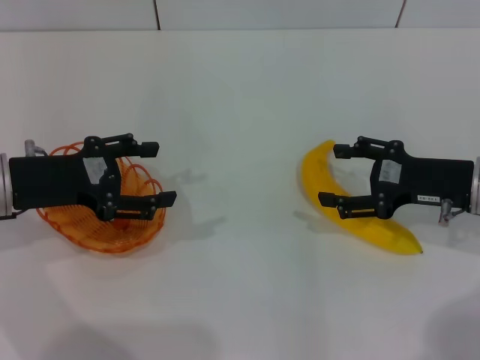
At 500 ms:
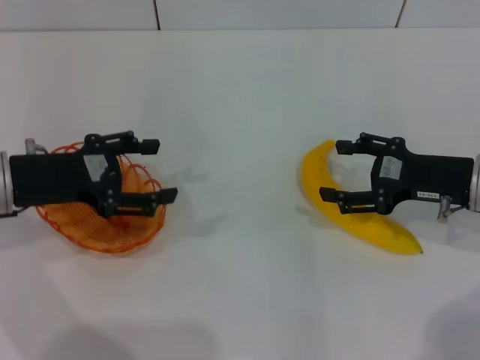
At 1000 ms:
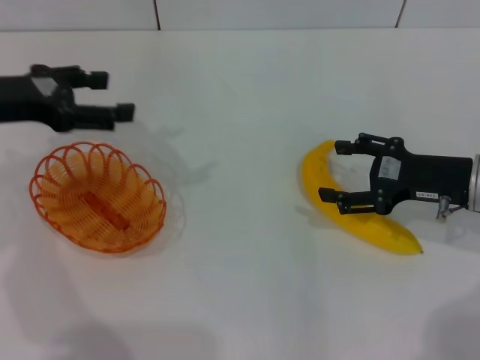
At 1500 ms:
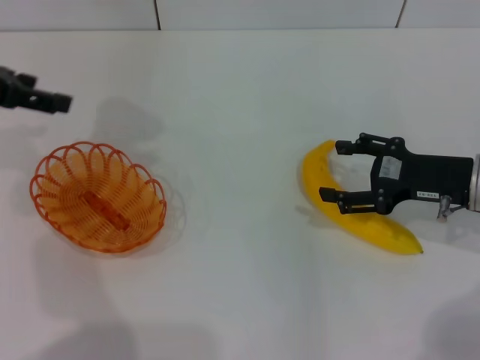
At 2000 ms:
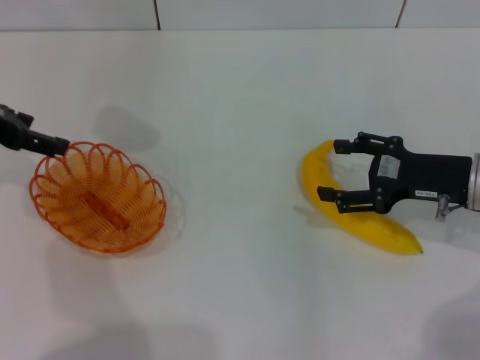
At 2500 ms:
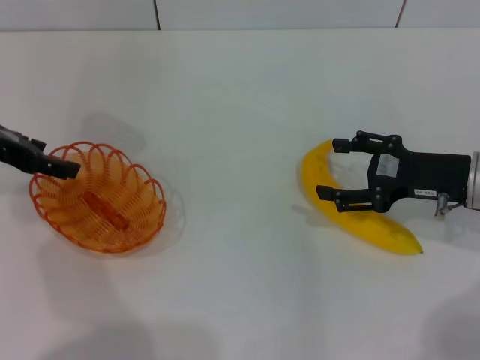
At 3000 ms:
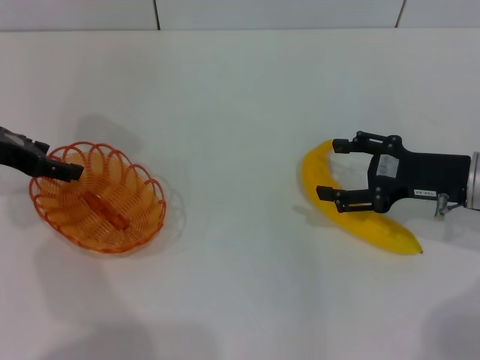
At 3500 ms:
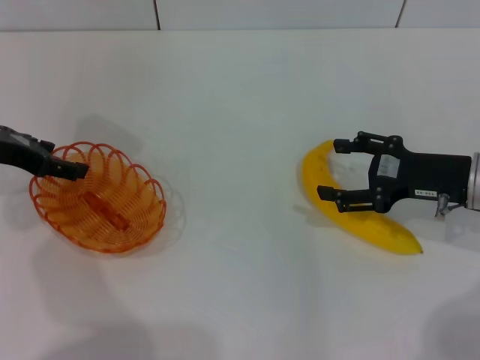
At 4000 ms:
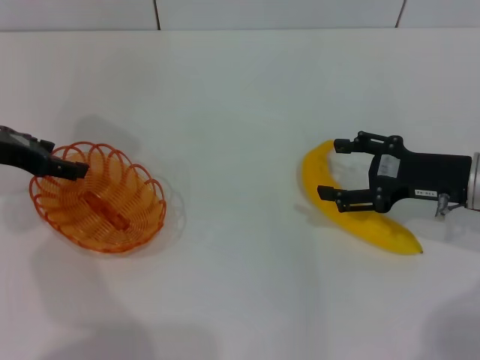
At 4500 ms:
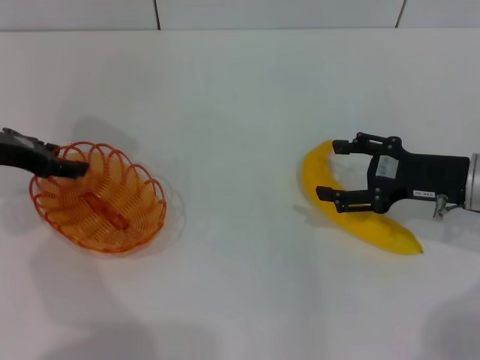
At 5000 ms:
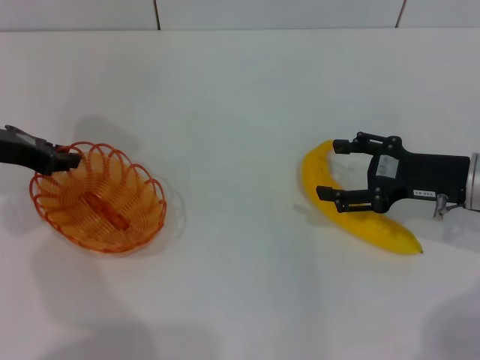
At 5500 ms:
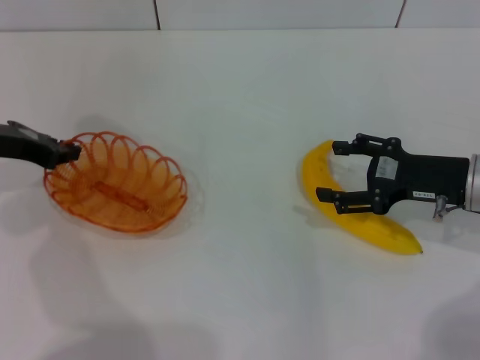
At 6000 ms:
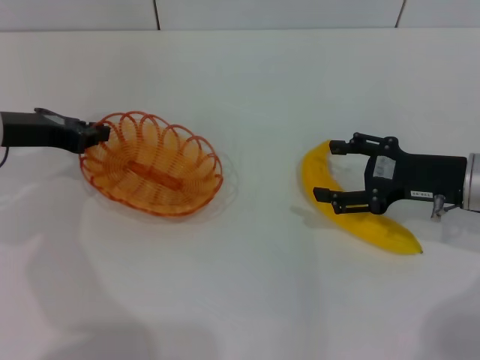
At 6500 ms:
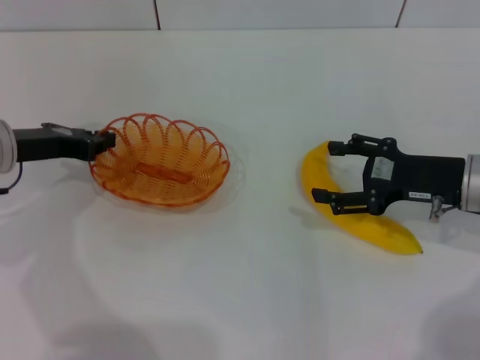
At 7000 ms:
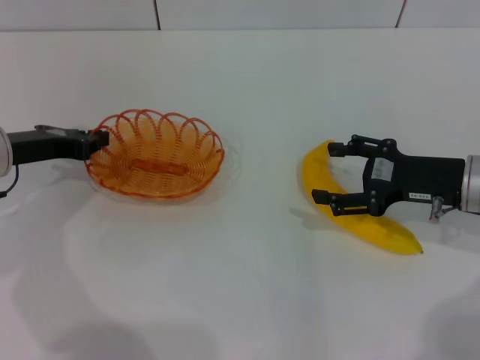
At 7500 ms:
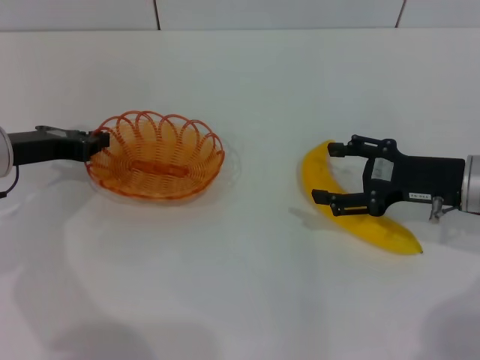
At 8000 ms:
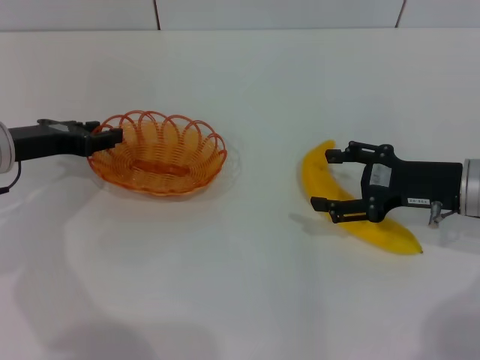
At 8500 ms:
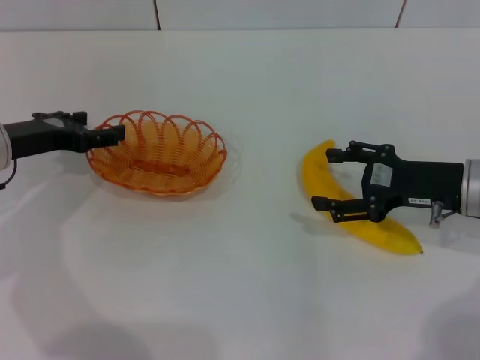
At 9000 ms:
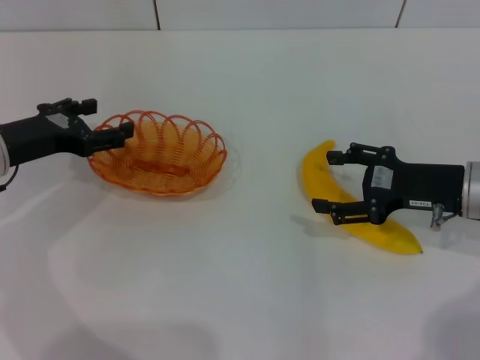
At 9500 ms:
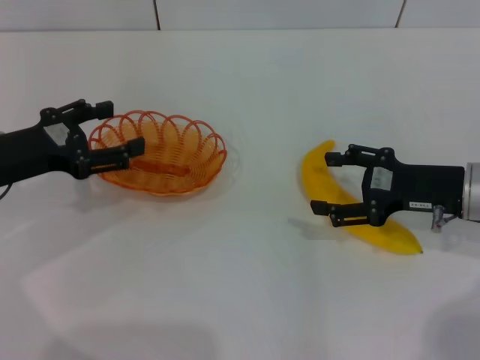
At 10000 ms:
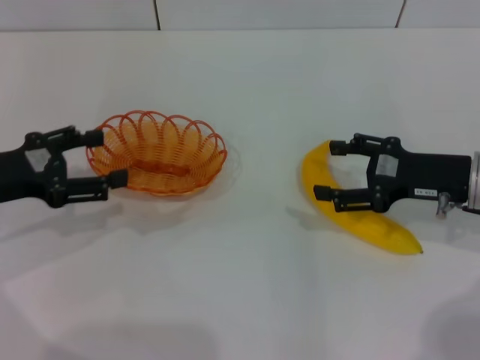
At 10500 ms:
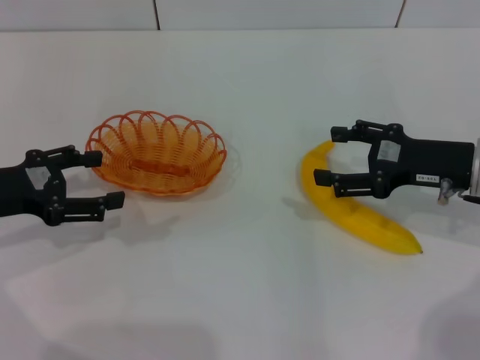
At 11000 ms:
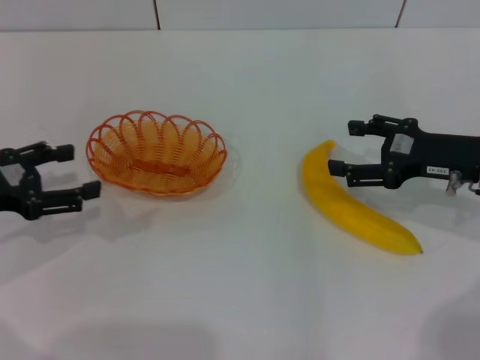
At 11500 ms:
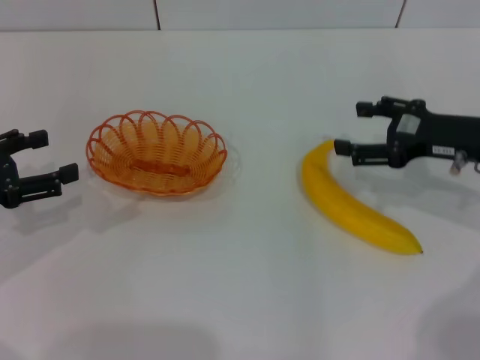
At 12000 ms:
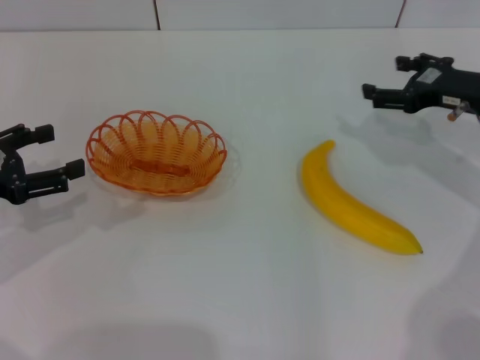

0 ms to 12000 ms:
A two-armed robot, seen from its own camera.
Step, 0 ms to 5500 ms: Pick up the basket with the left gripper.
Step, 6000 ms to 9000 ms: Place the basket in the center of view with the left gripper.
0 ms to 2000 ms: The left gripper goes some 10 cm upward and forward.
2000 ms to 4000 ms: The left gripper shifts some 5 cm downward.
4000 ms to 6000 ms: The left gripper closes up.
6000 ms to 8000 ms: The grippers stay close to where they were, moving slightly.
8000 ms to 10000 ms: The left gripper goes about 5 cm backward, and opens up.
10000 ms to 12000 ms: The right gripper is displaced forward by roughly 5 cm.

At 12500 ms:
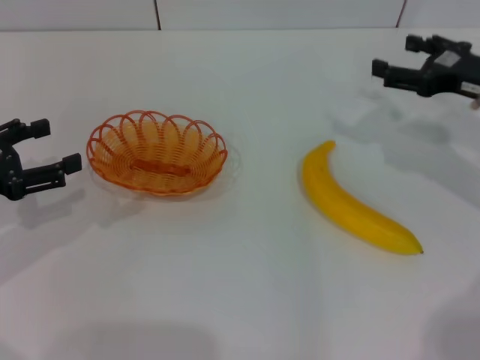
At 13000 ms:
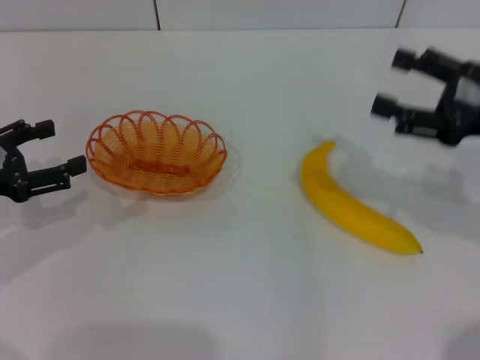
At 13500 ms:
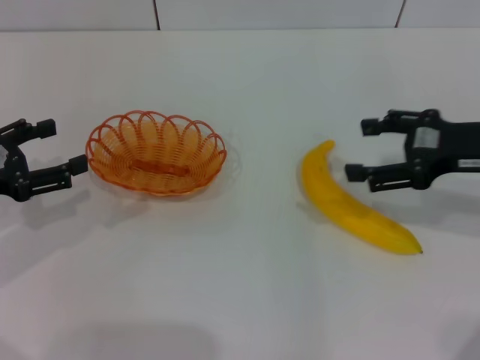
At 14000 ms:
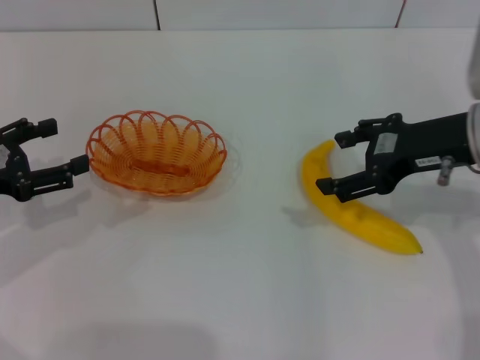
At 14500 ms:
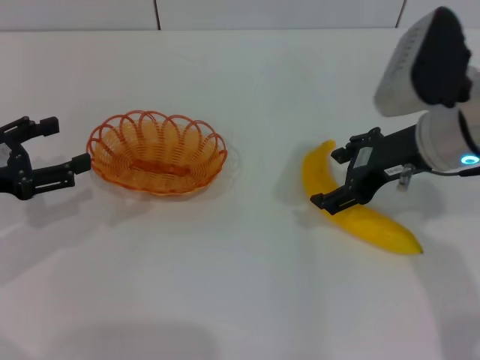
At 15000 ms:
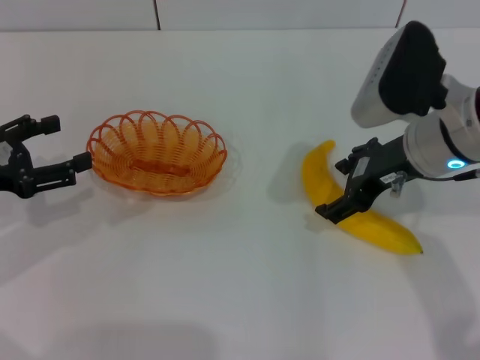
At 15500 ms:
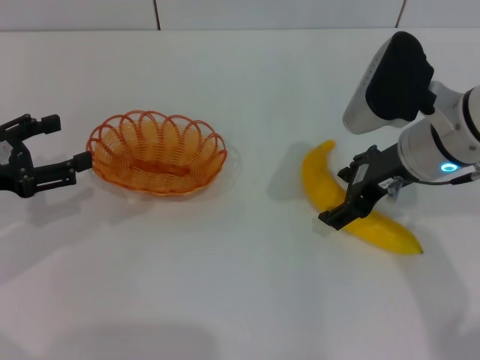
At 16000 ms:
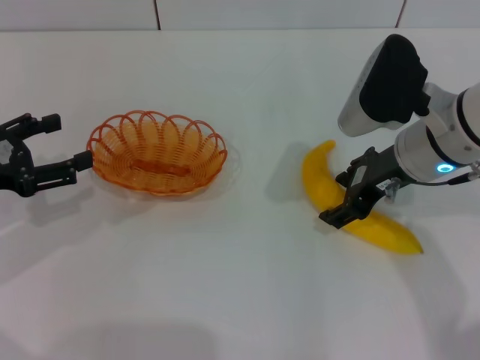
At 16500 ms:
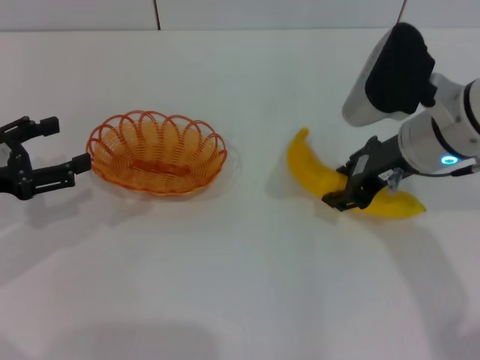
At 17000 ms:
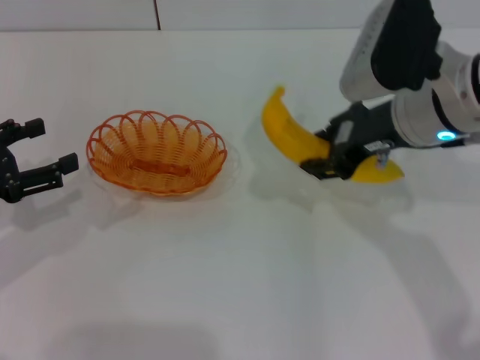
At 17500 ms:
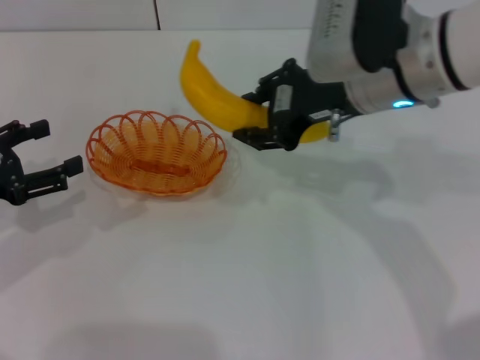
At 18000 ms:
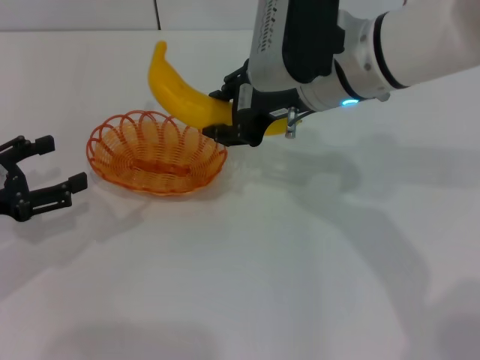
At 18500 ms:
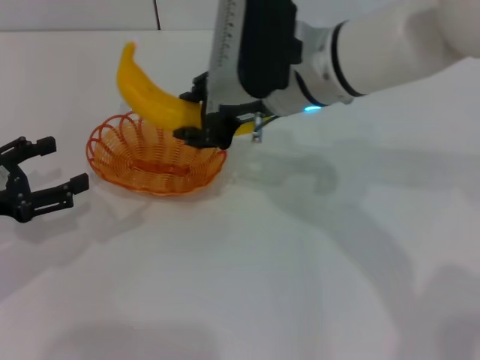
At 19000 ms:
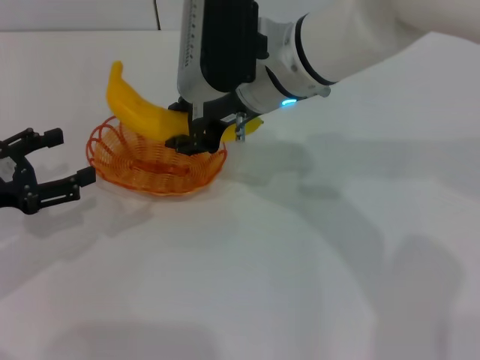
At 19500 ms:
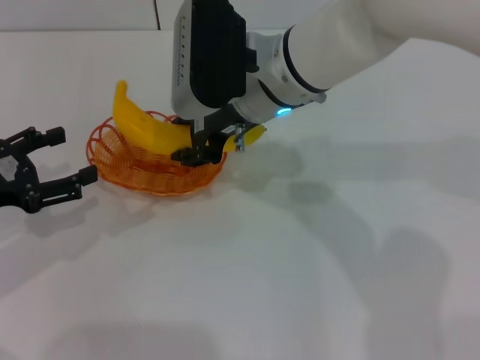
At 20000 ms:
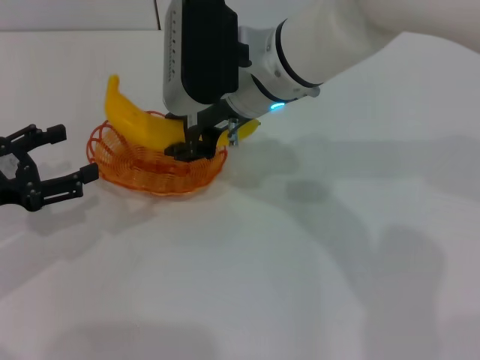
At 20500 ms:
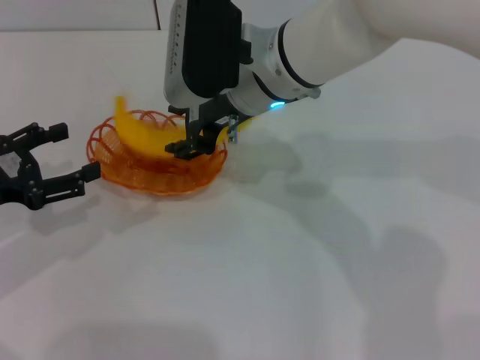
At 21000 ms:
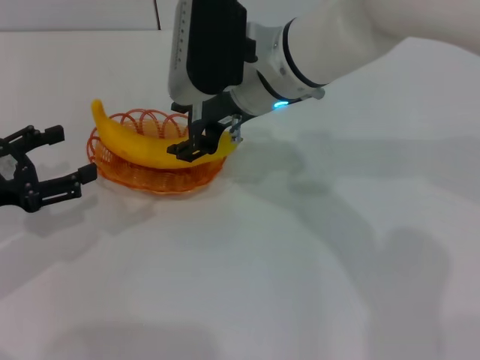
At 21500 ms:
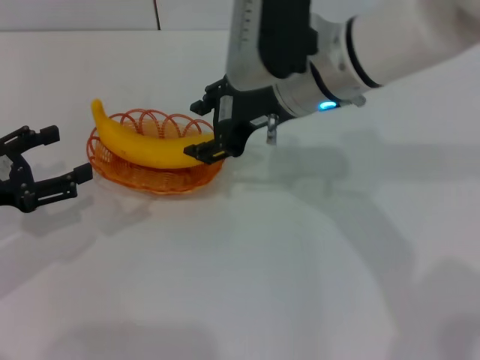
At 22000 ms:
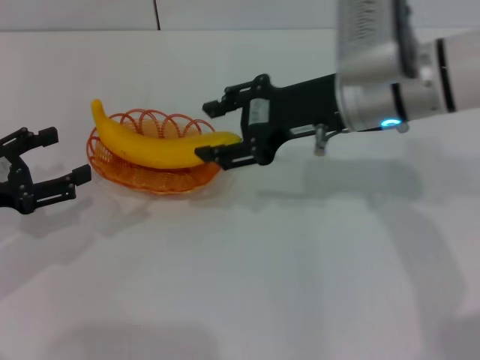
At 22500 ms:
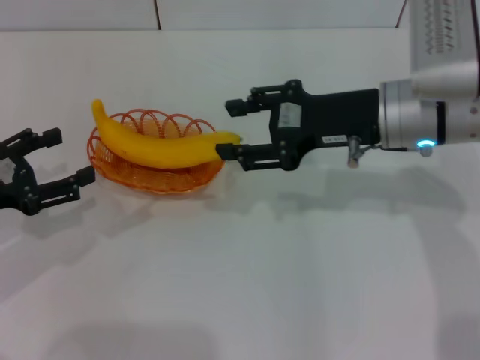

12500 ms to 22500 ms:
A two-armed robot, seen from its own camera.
Step, 12500 ms to 16500 ms: Pick up the banana with the right gripper.
Step, 17000 ms to 21000 ms: Place the banana into the basket with the right gripper.
12500 ms to 14500 ms: The right gripper shifts about 10 cm to the left.
14500 ms to 16500 ms: The right gripper closes its fingers.
16500 ms to 18500 ms: The right gripper is displaced to the left by some 10 cm.
18500 ms to 20500 ms: The grippers move only a little.
20500 ms to 22500 ms: The right gripper goes approximately 15 cm to the right, and opens up.

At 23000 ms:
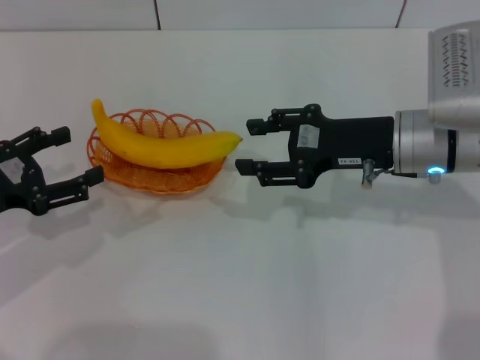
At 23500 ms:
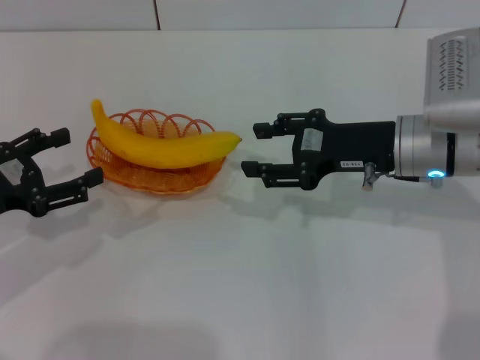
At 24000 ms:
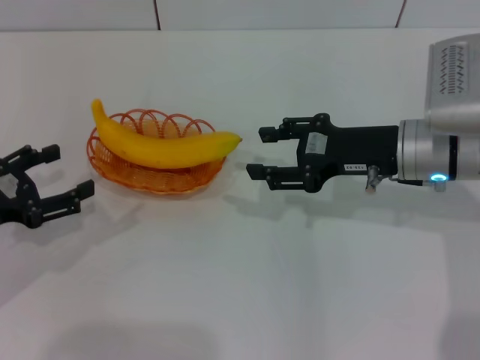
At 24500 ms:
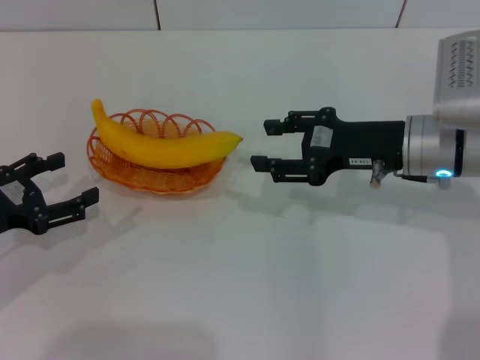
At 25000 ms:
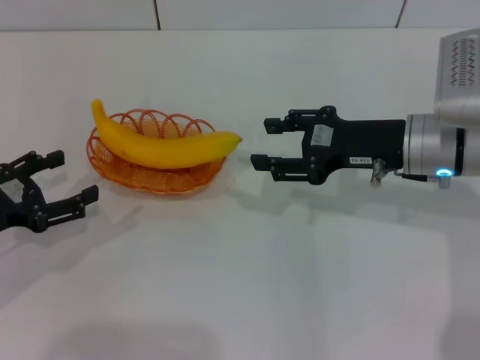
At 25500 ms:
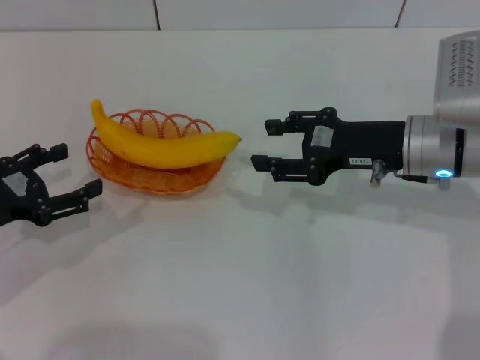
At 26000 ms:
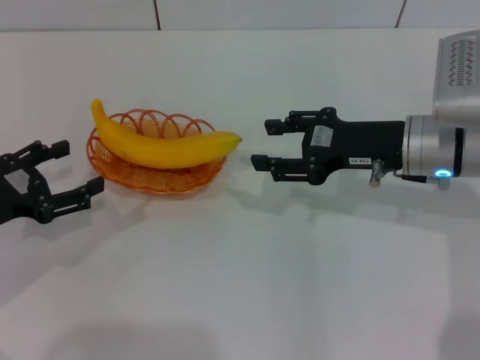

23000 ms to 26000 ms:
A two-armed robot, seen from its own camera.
23000 ms to 24500 ms: There are only small adjustments of the grippers.
24500 ms to 26000 ms: Both grippers stay about where they are.
